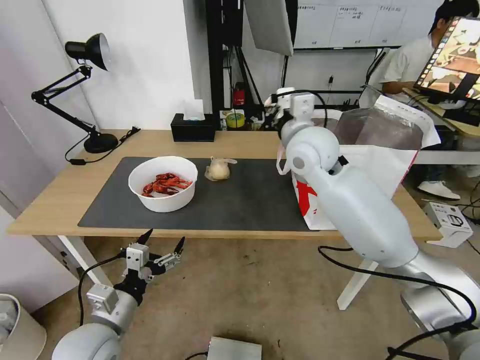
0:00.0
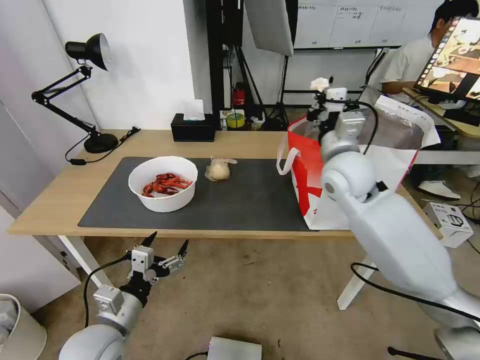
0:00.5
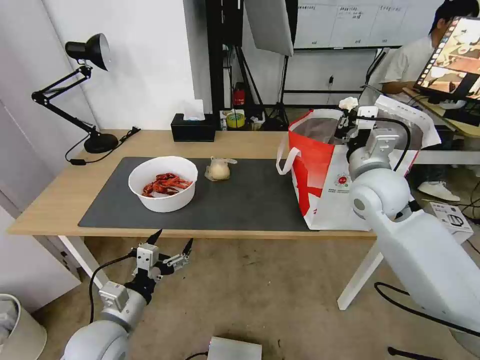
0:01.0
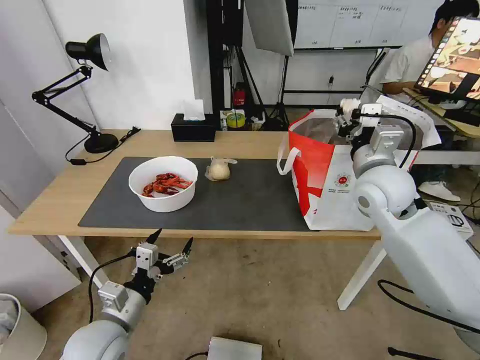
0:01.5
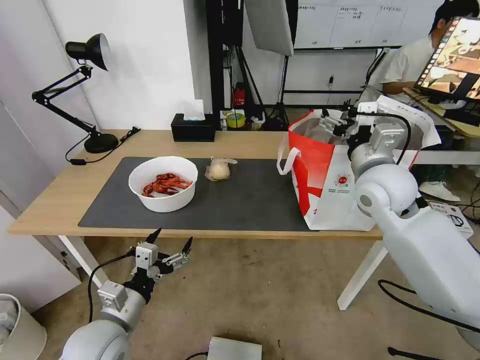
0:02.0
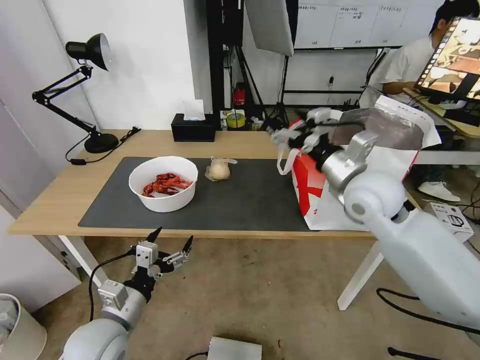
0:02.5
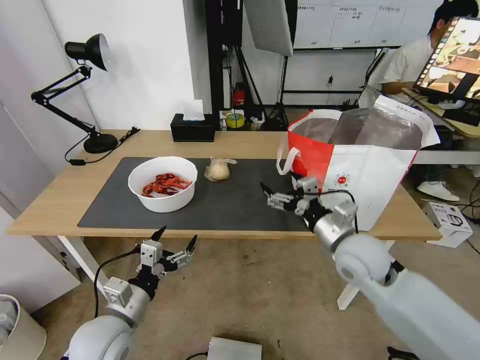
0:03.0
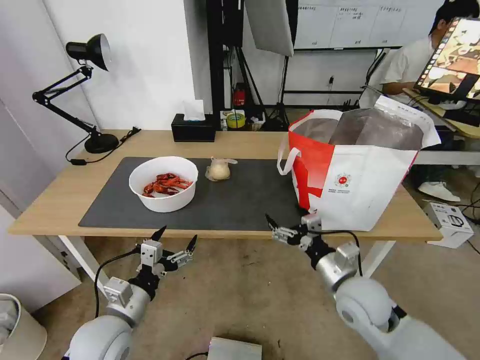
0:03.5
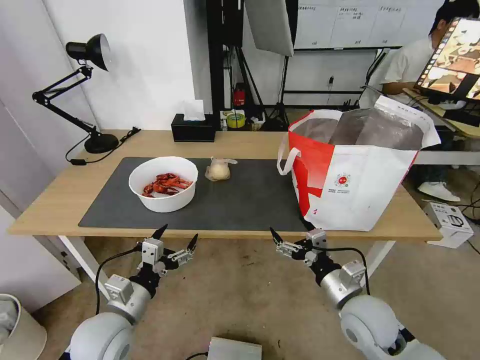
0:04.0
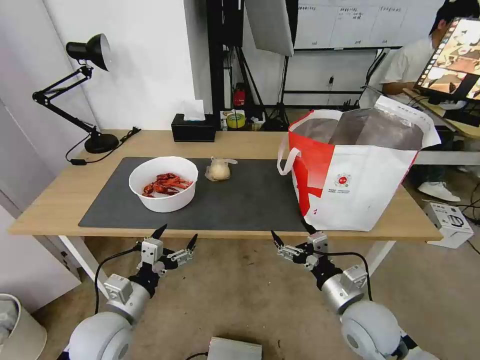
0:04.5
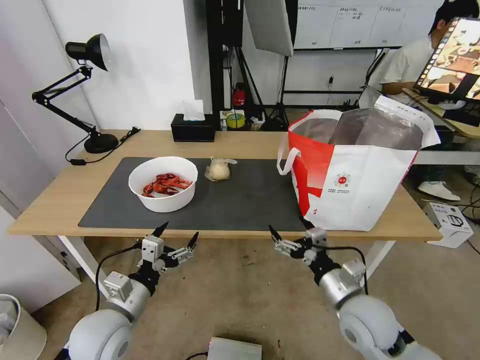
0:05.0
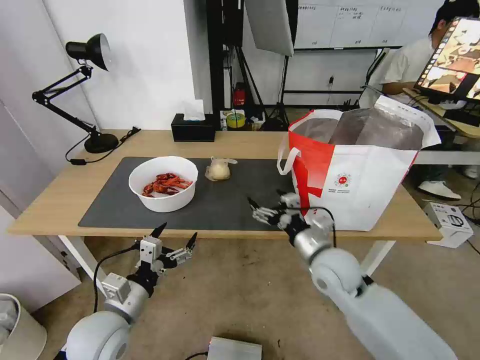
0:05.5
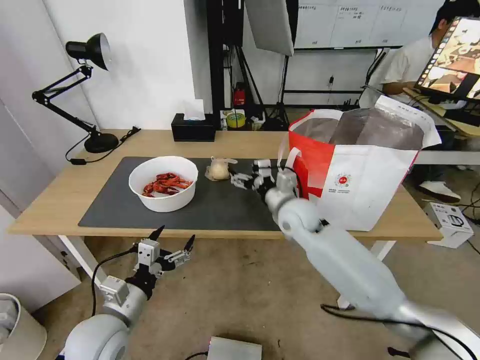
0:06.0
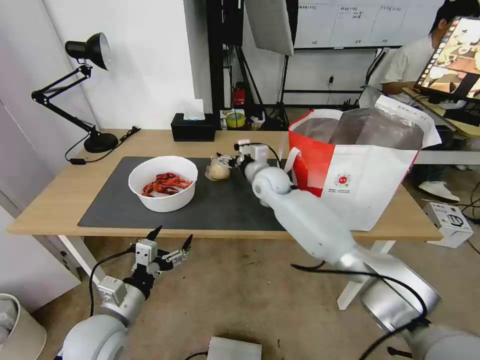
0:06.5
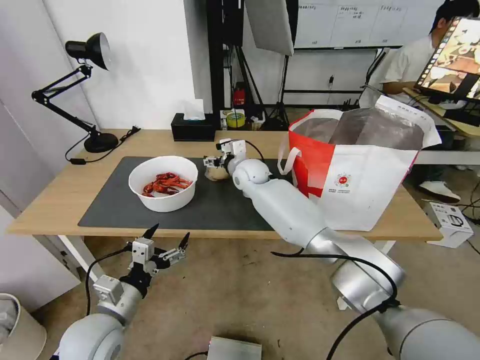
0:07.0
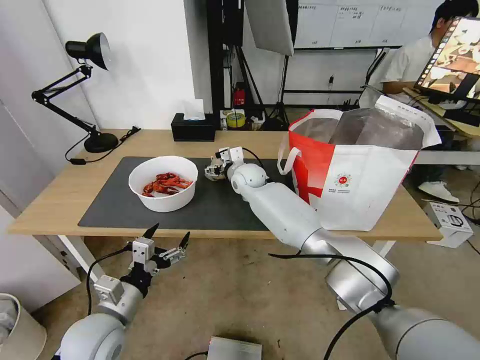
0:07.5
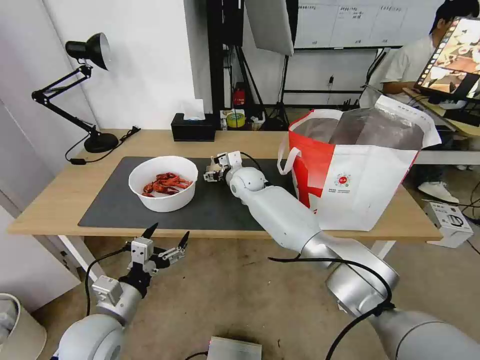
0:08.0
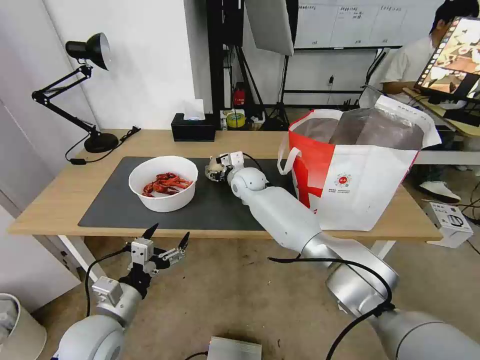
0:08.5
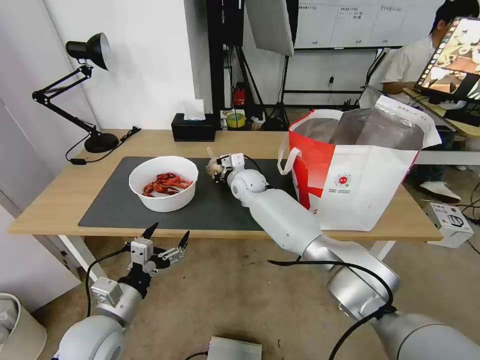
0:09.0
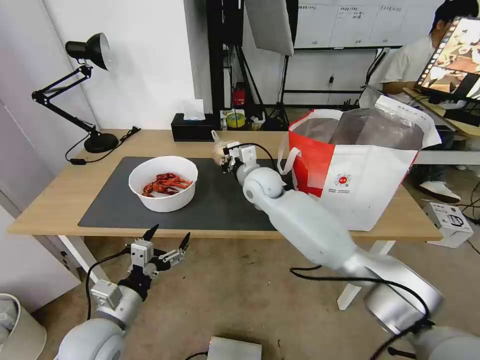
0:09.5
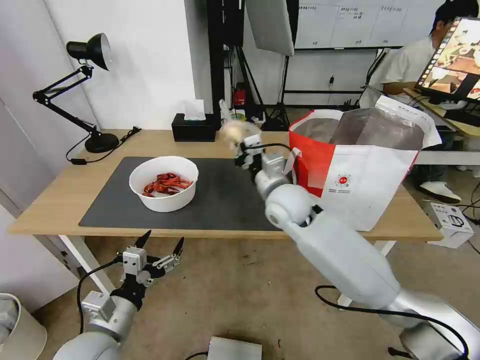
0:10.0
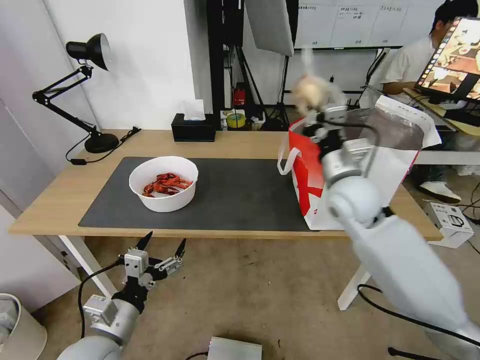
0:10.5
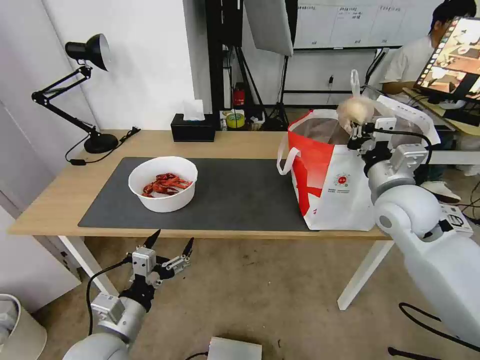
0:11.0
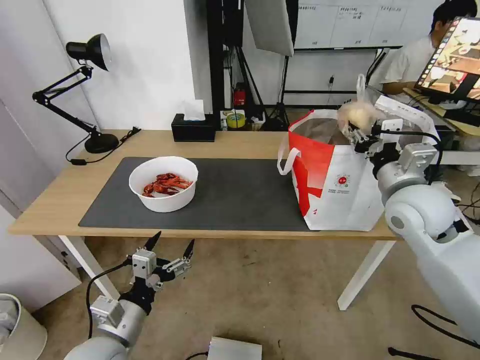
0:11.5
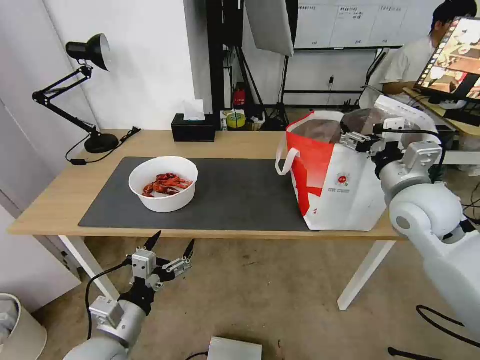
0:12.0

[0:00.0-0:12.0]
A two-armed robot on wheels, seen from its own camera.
Task of the whole recording: Pick up the trash from the table and place it into the takeout bag.
0:00.0 to 0:02.0: The right gripper moves to the right and backward, some 15 cm, and opens.
0:02.0 to 0:04.0: The right gripper heads downward and backward, covering about 25 cm.
0:04.0 to 0:06.0: The right gripper travels forward and to the left by some 25 cm.
0:06.0 to 0:08.0: The right gripper shifts some 20 cm forward and to the left.
0:08.0 to 0:10.0: The right gripper travels backward, to the right and upward by roughly 20 cm, and closes.
0:10.0 to 0:12.0: The right gripper heads to the right, covering approximately 20 cm, and opens.

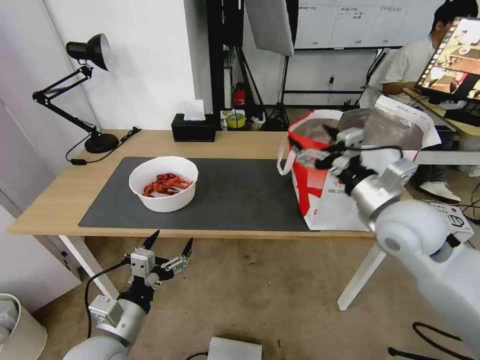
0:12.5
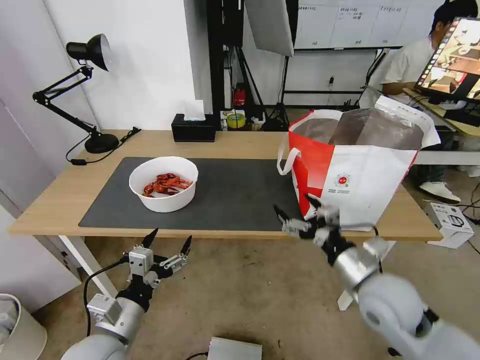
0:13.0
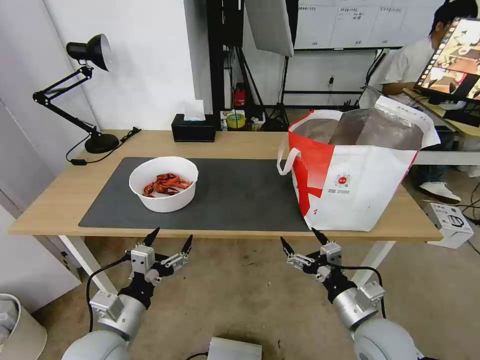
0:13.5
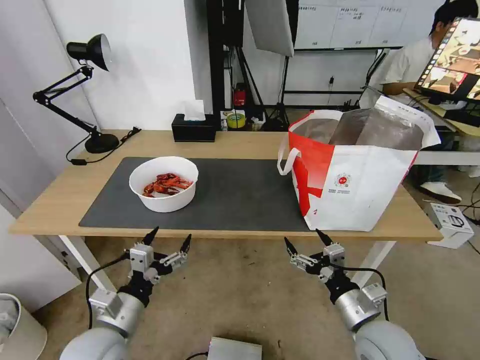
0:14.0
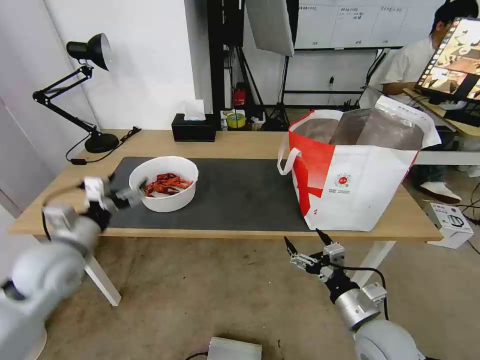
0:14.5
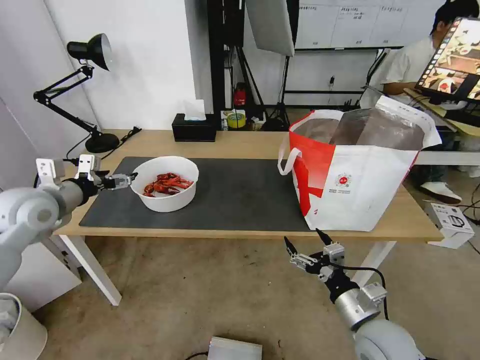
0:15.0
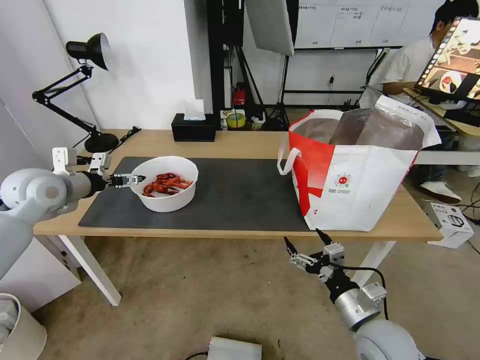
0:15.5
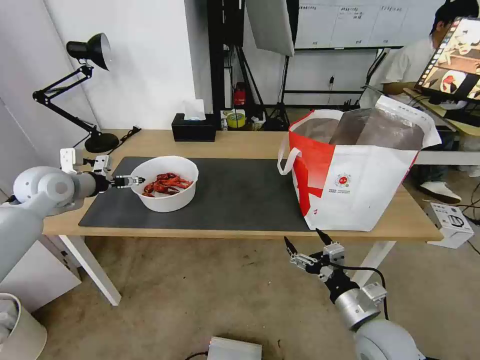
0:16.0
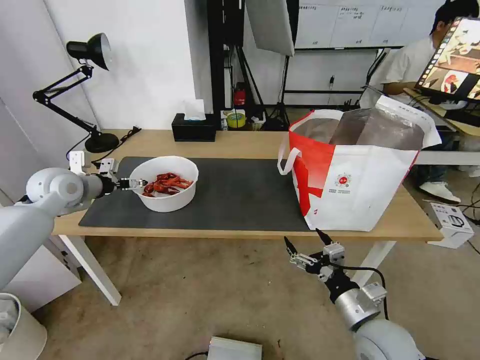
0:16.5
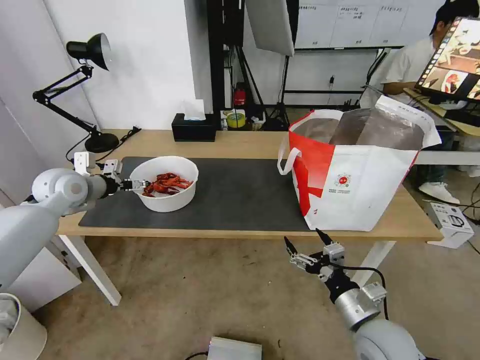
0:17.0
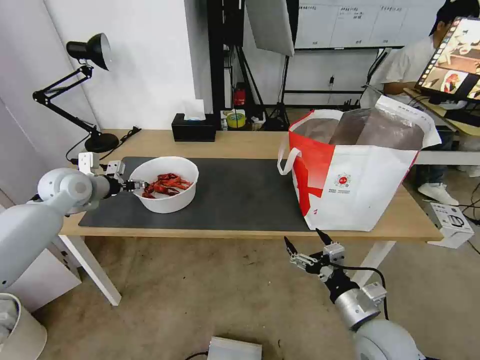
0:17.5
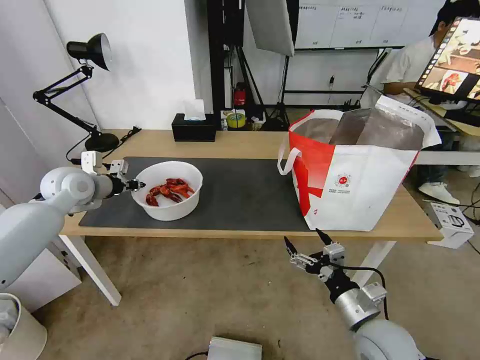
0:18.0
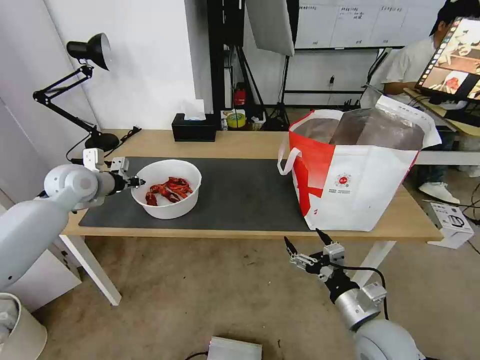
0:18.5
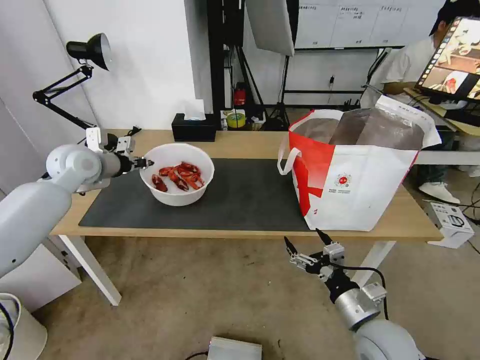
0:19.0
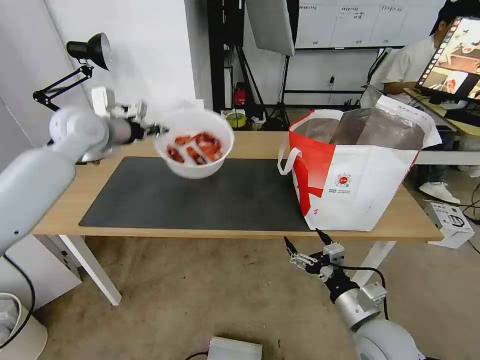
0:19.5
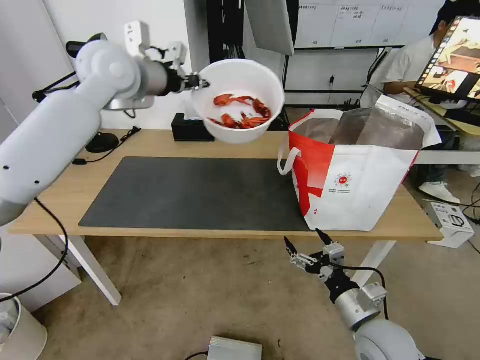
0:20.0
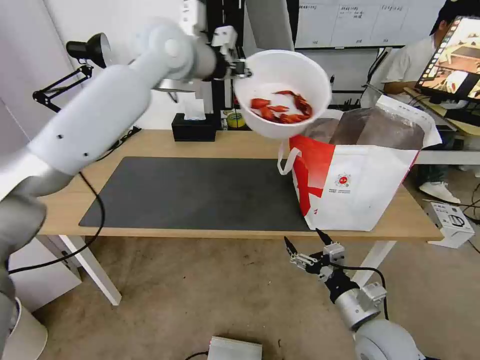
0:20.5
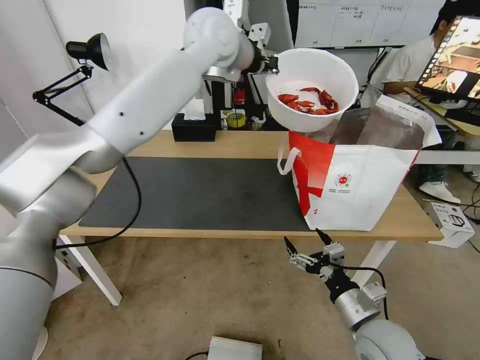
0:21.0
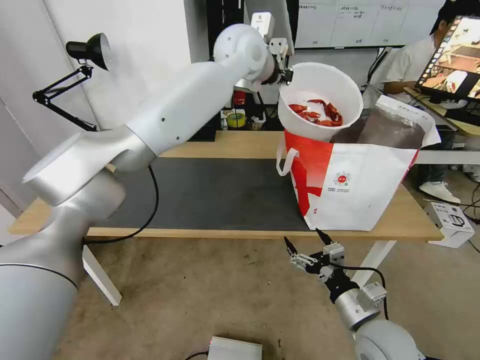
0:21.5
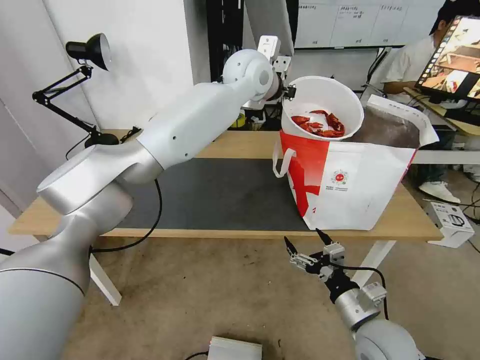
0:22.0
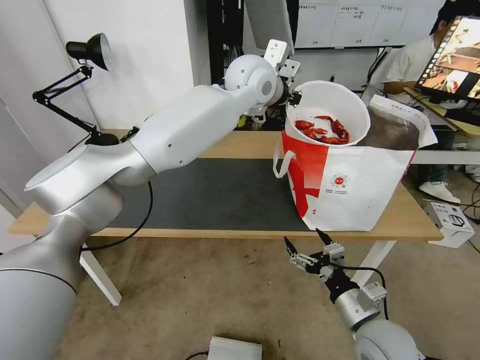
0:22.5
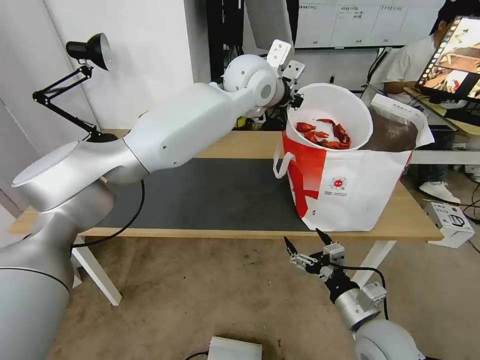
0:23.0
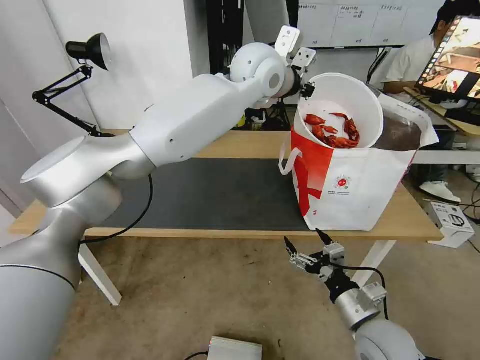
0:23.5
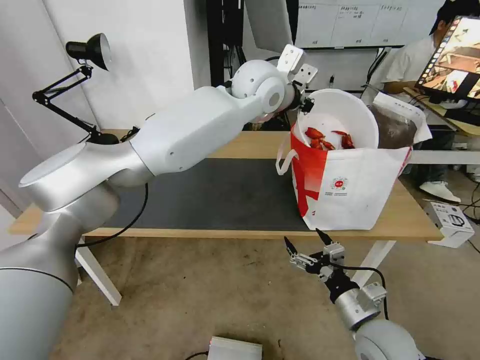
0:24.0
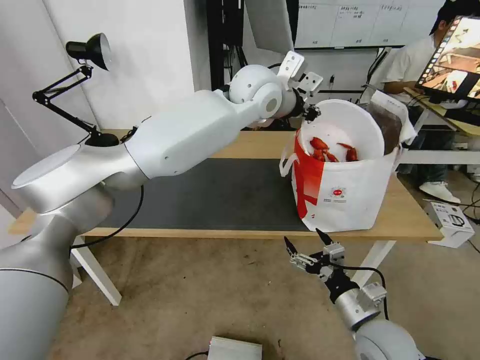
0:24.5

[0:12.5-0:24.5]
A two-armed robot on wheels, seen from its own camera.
Task of the whole recording: Pick up the trash from the table and place it into the takeout bag.
0:12.5 to 0:14.5: The left gripper heads forward, to the left and upward, covering roughly 20 cm; the right gripper is displaced downward and backward by approximately 25 cm.
0:14.5 to 0:16.5: The left gripper is displaced forward by about 15 cm.
0:16.5 to 0:18.5: The left gripper closes its fingers.
0:18.5 to 0:20.5: The left gripper goes about 35 cm to the right and upward.
0:20.5 to 0:22.5: The left gripper is displaced to the right and downward by some 15 cm.
0:22.5 to 0:24.5: The grippers stay close to where they were, moving slightly.

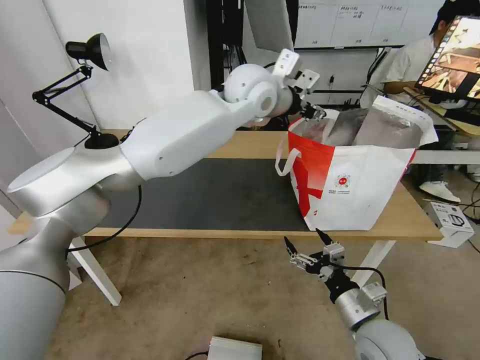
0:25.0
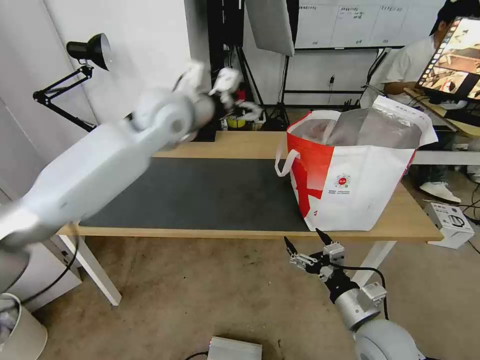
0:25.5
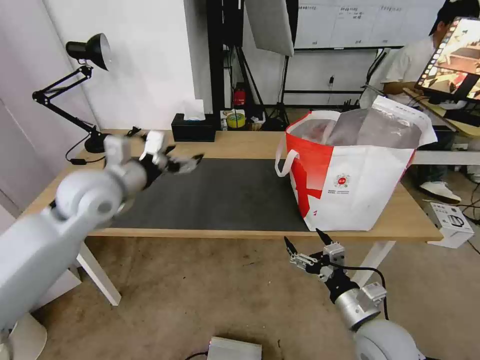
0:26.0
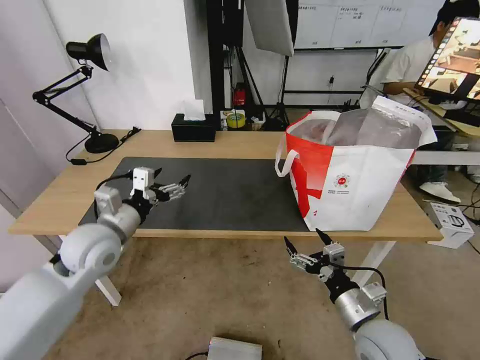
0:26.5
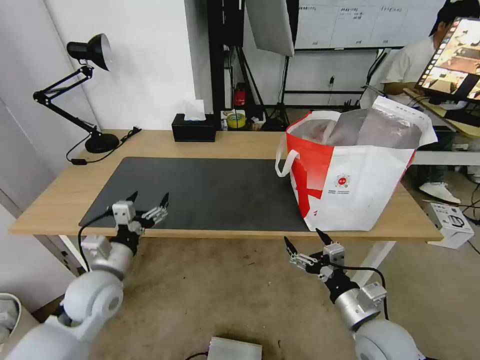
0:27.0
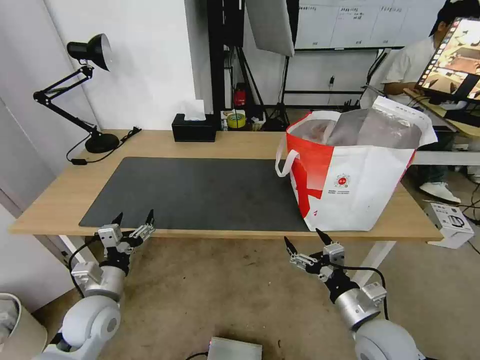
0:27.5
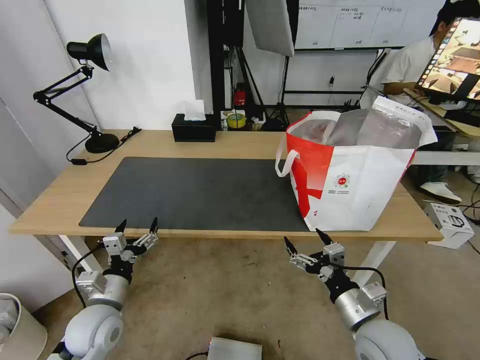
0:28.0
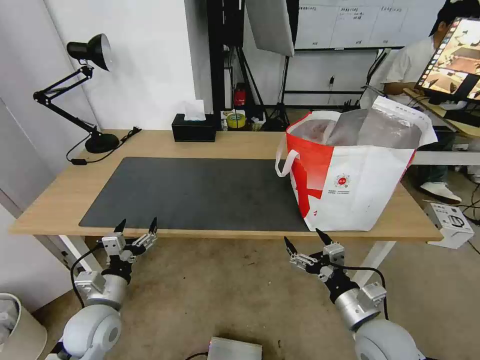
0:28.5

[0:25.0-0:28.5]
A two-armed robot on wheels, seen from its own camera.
Task of the whole recording: Pick up the trash from the table and place it into the takeout bag.
0:25.0 to 0:27.0: The left gripper heads downward, to the left and backward, covering roughly 50 cm, and opens up.
0:27.0 to 0:28.5: The left gripper travels downward by some 5 cm.
